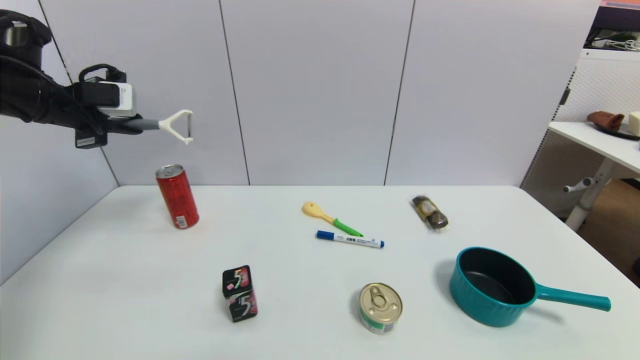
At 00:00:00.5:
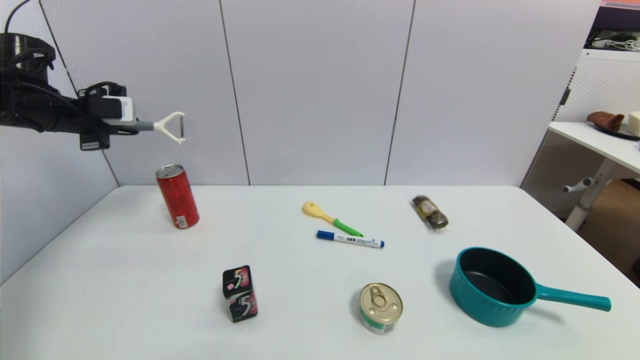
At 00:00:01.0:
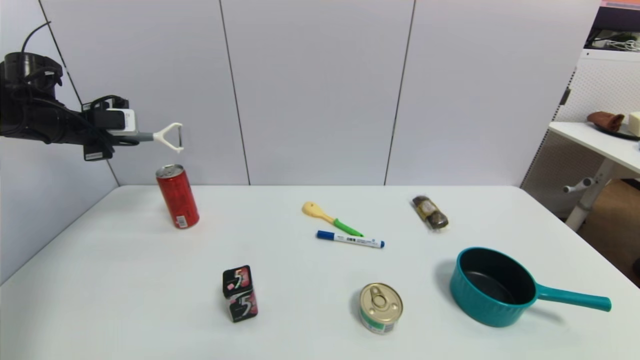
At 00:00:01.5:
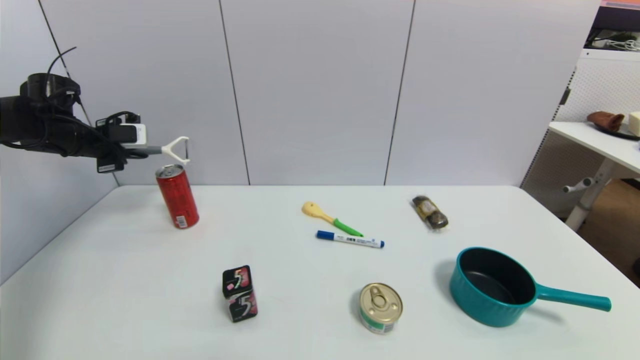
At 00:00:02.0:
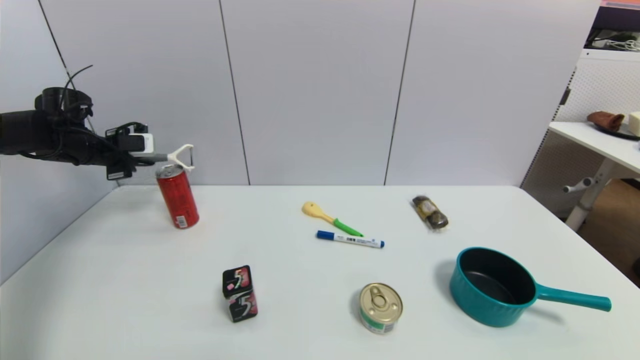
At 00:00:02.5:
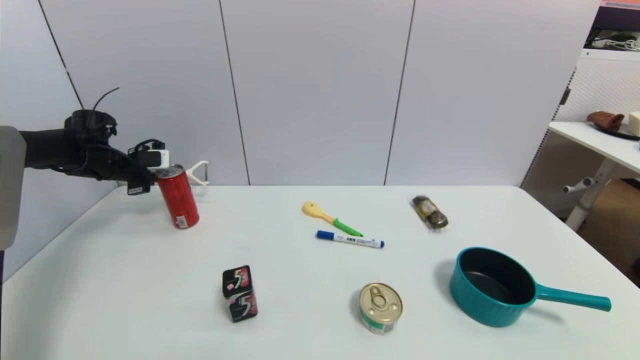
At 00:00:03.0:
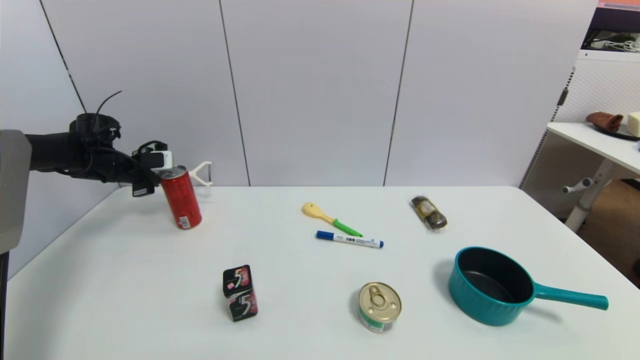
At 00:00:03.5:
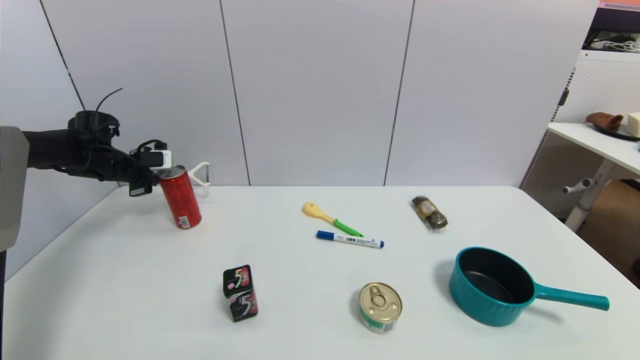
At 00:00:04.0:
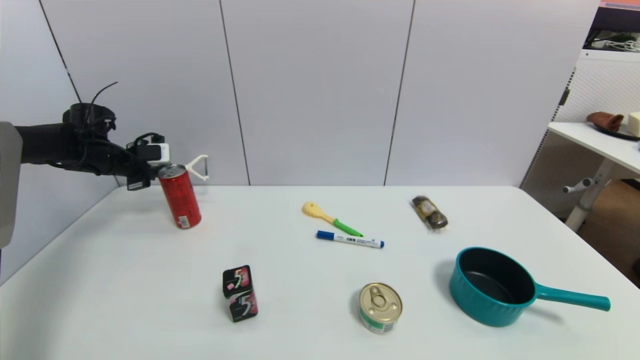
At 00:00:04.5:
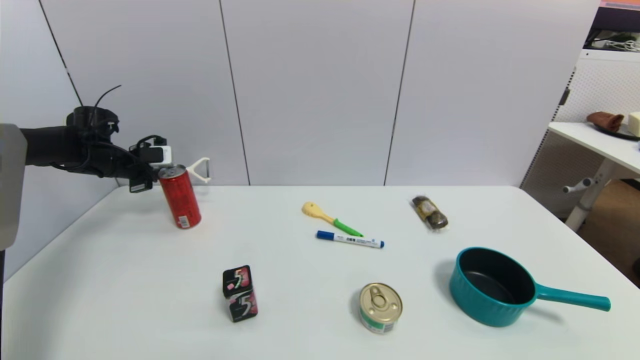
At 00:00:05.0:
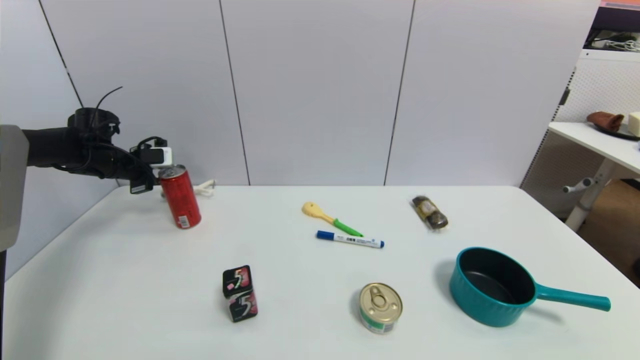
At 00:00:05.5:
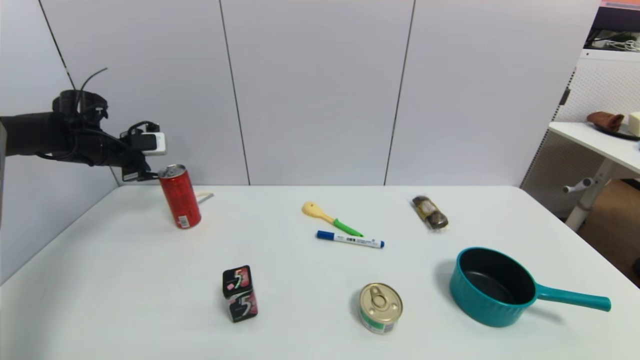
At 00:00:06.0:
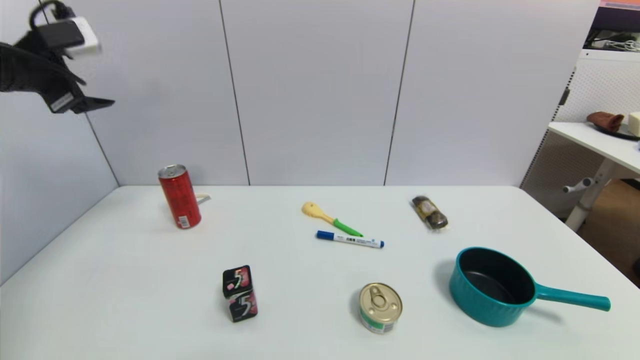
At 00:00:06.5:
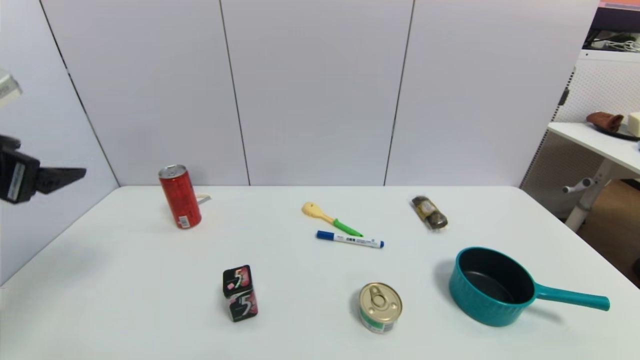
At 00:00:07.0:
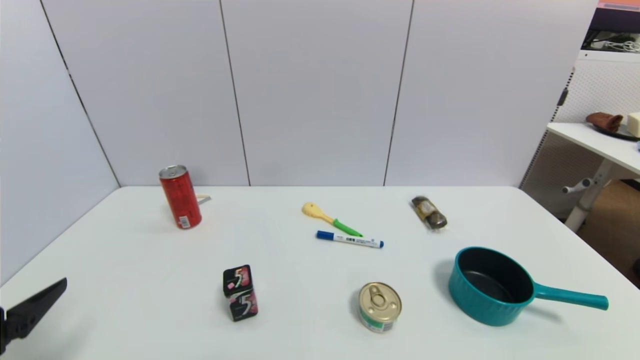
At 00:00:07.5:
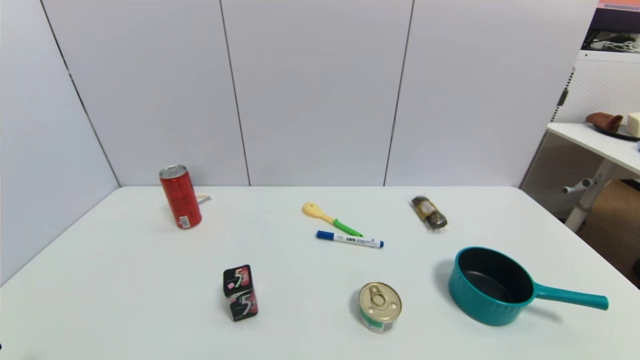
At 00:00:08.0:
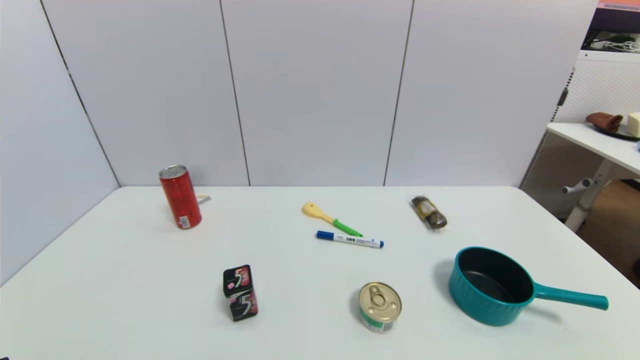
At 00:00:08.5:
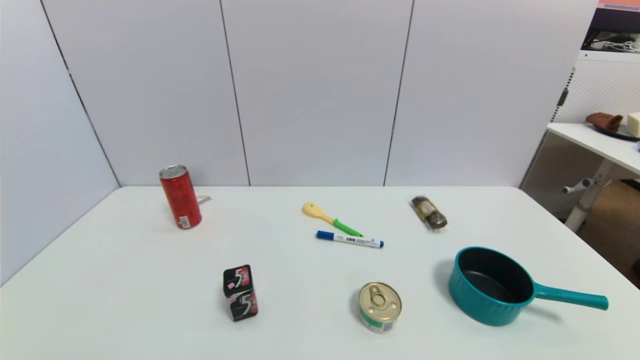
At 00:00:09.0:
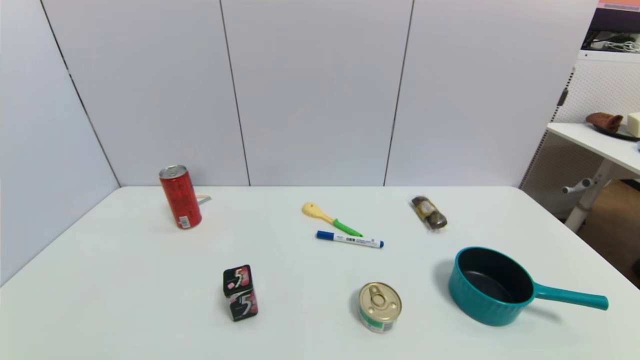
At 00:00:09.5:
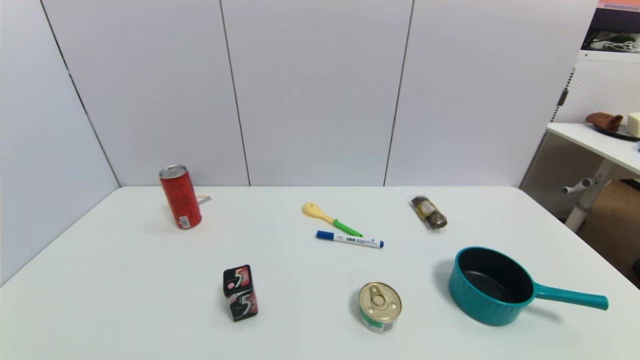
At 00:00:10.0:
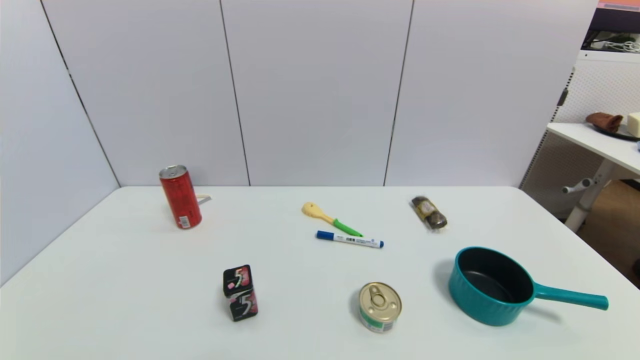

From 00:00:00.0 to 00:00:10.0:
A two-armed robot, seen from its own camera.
Step, from 00:00:00.0 to 00:00:05.0: Place the peeler on the table with left gripper.
From 00:00:00.0 to 00:00:02.0: The left gripper moves downward, forward and to the left, some 15 cm.
From 00:00:04.0 to 00:00:06.0: The left gripper goes some 25 cm upward and backward, and opens up.
From 00:00:06.0 to 00:00:08.0: The left gripper moves backward and downward, roughly 40 cm.
